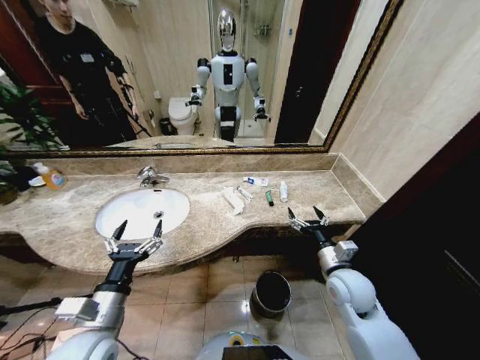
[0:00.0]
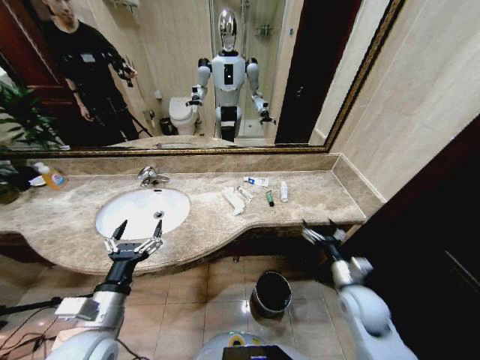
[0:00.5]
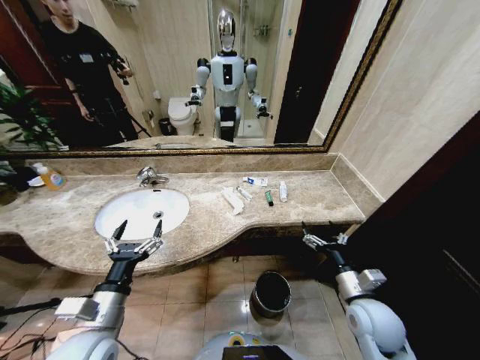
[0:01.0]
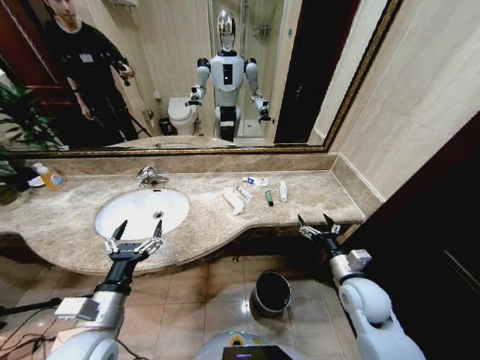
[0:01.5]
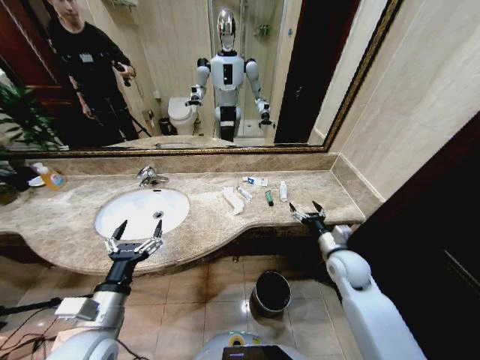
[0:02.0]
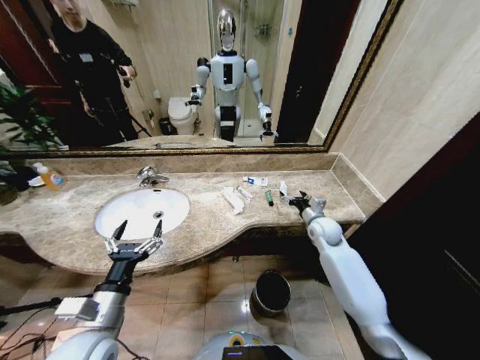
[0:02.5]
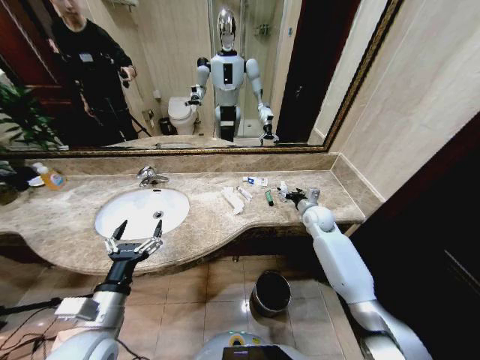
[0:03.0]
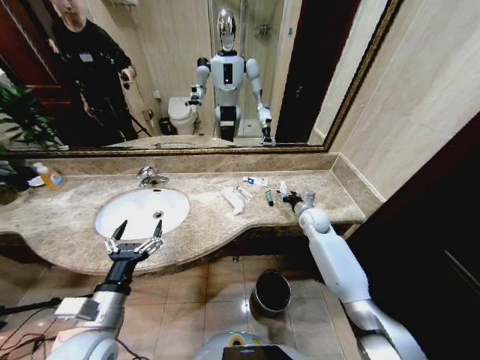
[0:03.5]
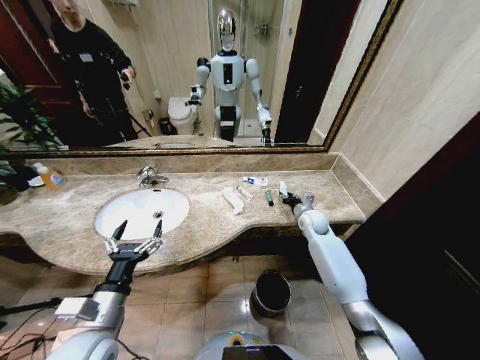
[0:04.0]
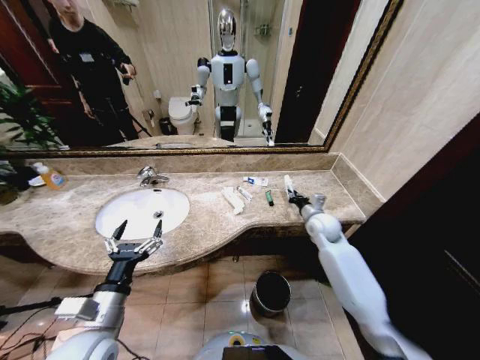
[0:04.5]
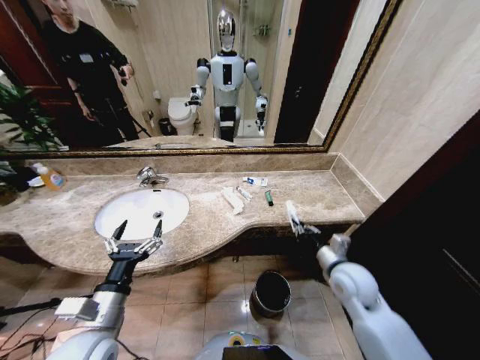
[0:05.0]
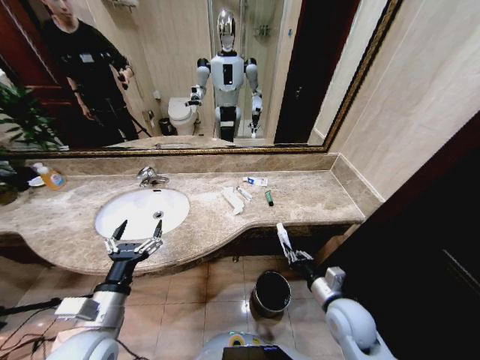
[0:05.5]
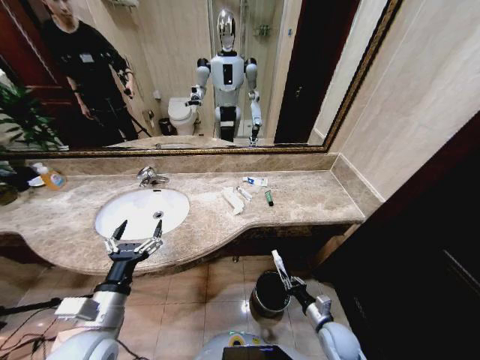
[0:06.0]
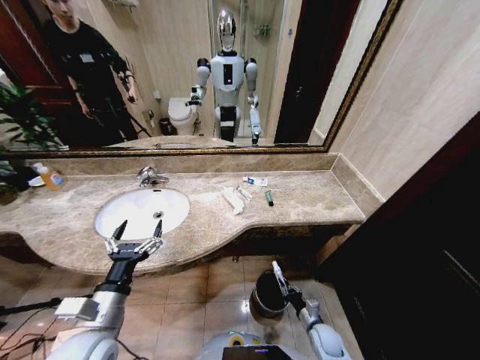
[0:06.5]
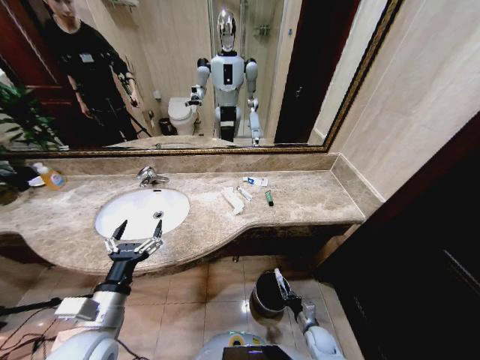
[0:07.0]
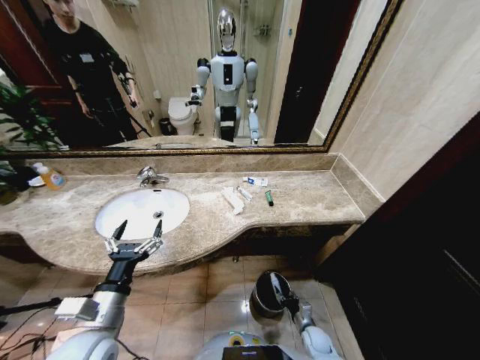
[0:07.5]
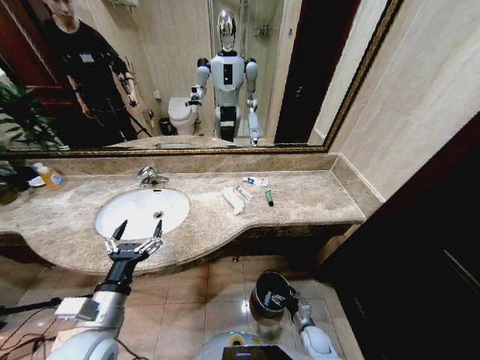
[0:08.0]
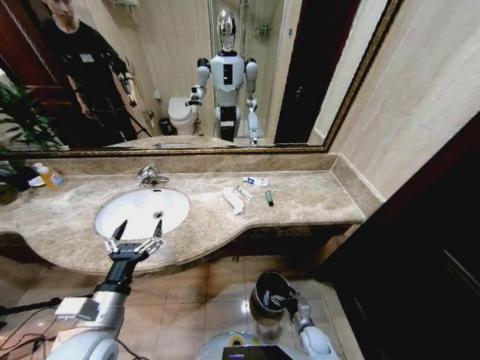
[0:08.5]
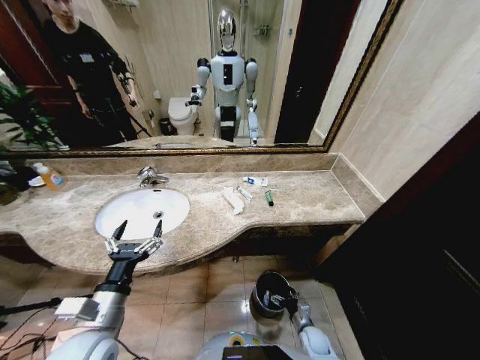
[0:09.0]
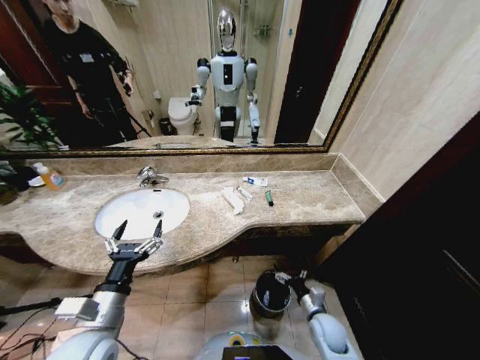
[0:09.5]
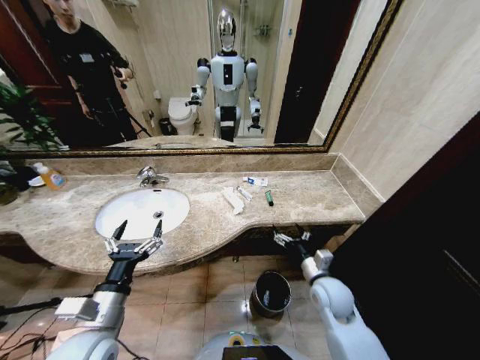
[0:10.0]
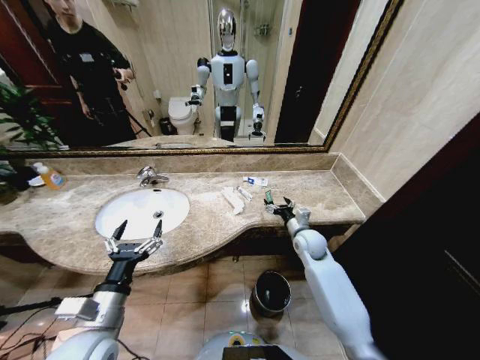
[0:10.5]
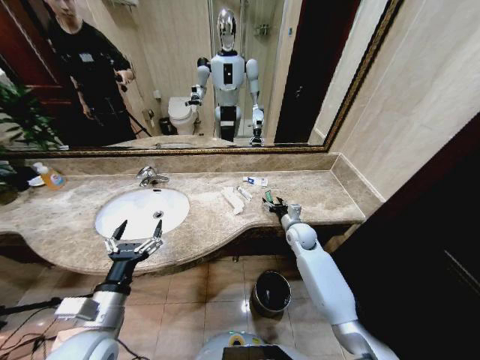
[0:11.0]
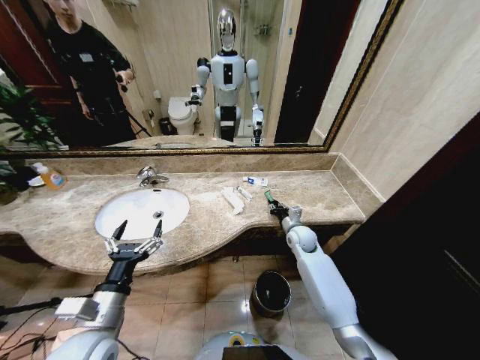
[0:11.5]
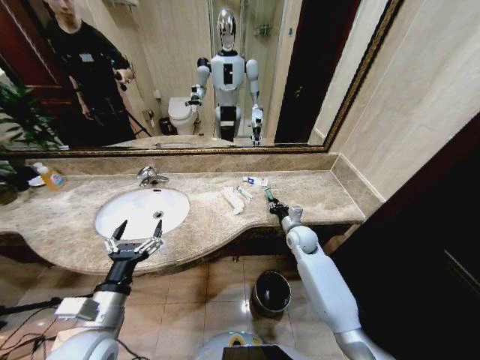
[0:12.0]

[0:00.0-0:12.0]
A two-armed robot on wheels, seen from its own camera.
Task of the whole recording: Pick up the trash from the sink and place it in the trash bin.
0:02.0 to 0:04.0: The right gripper goes some 15 cm forward, and closes up.
0:04.0 to 0:06.0: The right gripper is displaced backward and downward by approximately 35 cm, and closes up.
0:06.0 to 0:08.0: The right gripper is displaced downward by approximately 15 cm, and opens up.
0:08.0 to 0:10.0: The right gripper heads upward, covering some 30 cm.
0:10.0 to 0:12.0: The right gripper moves forward, approximately 15 cm, and closes.

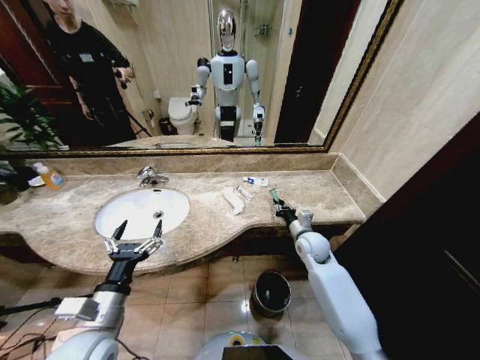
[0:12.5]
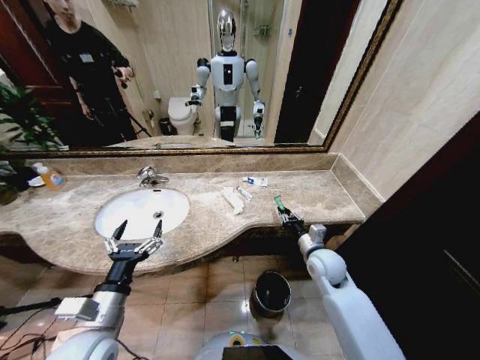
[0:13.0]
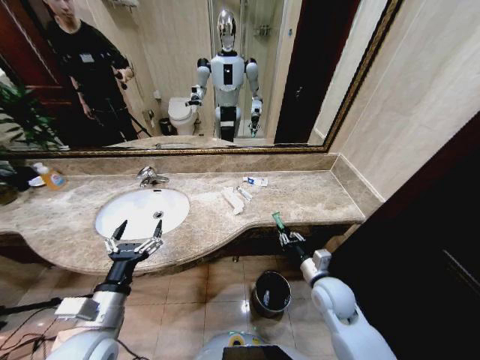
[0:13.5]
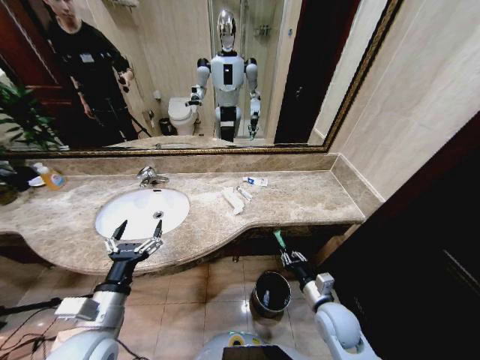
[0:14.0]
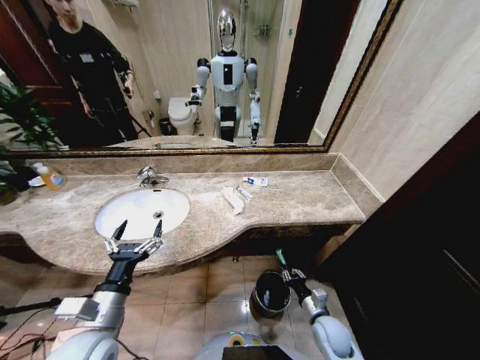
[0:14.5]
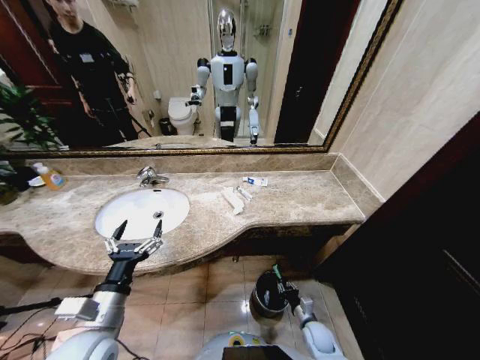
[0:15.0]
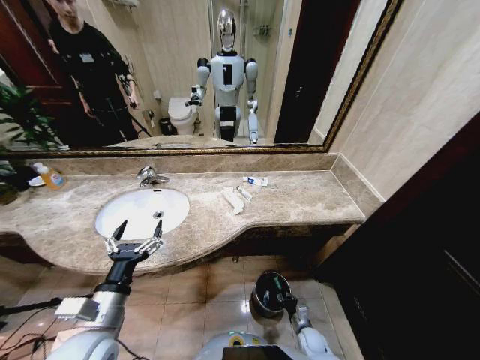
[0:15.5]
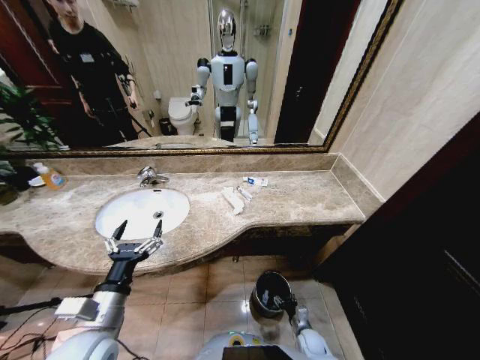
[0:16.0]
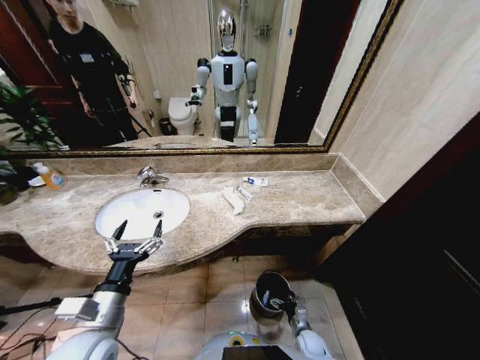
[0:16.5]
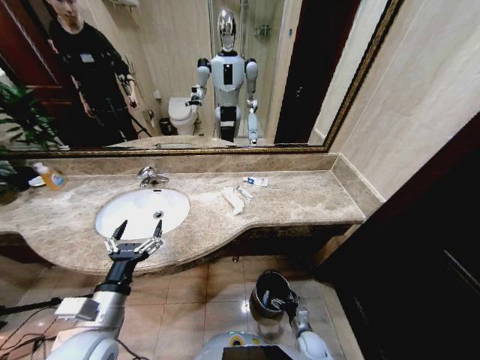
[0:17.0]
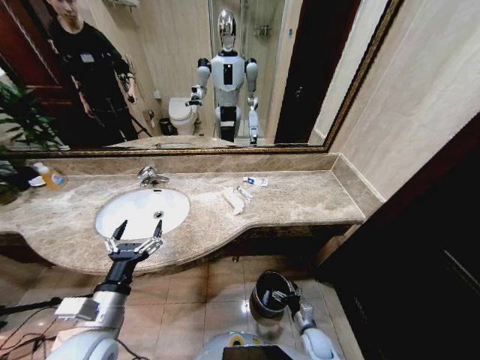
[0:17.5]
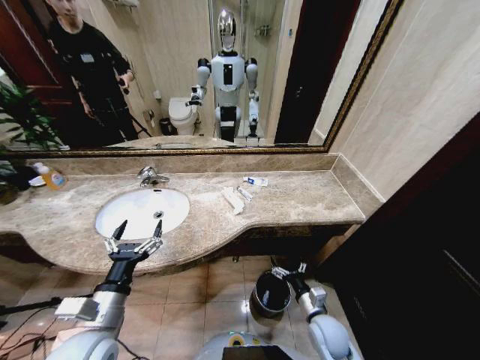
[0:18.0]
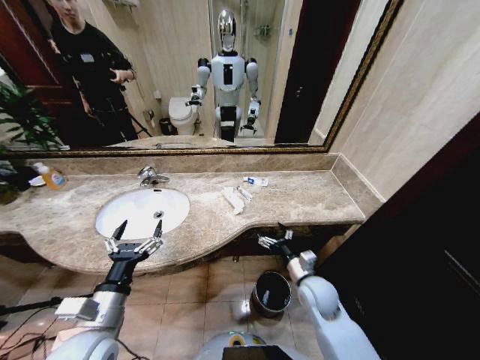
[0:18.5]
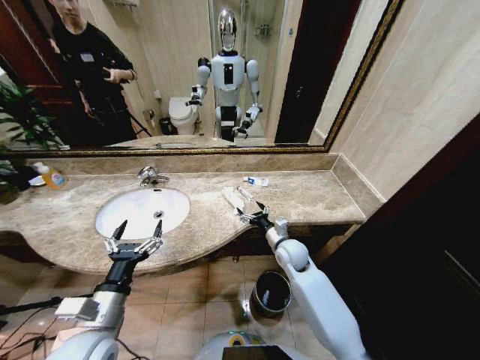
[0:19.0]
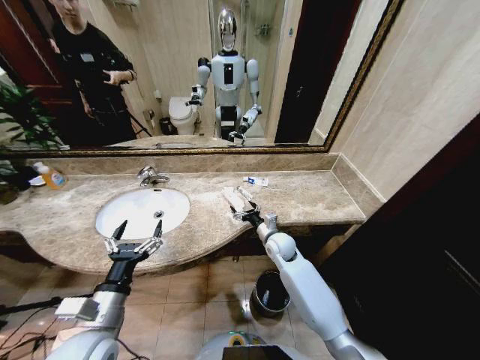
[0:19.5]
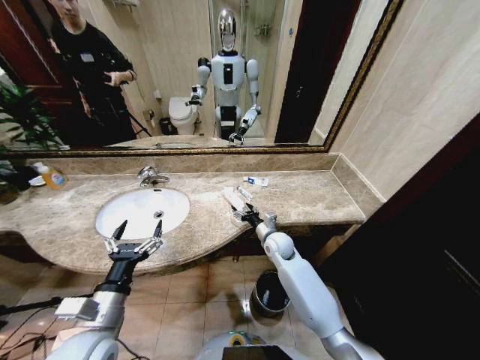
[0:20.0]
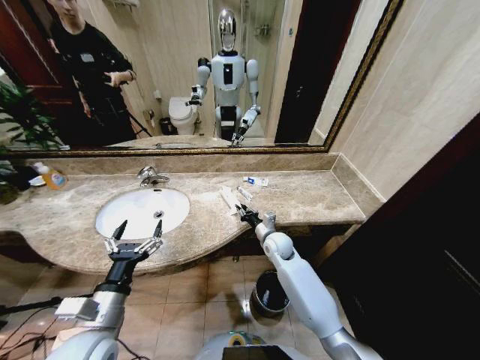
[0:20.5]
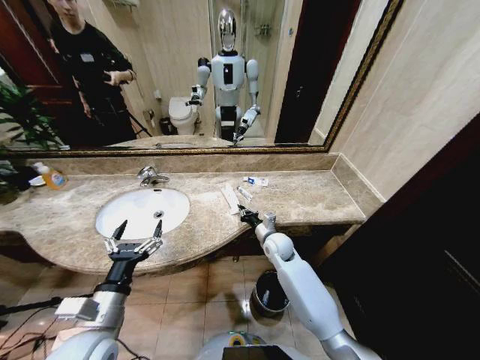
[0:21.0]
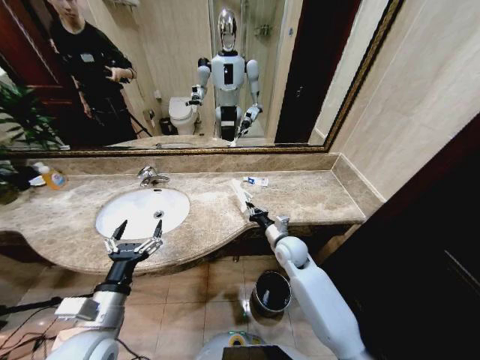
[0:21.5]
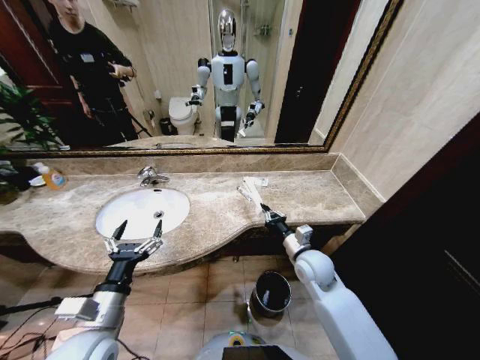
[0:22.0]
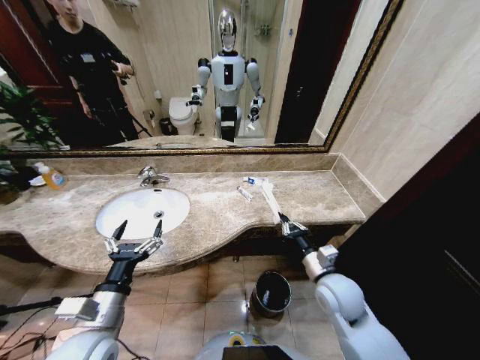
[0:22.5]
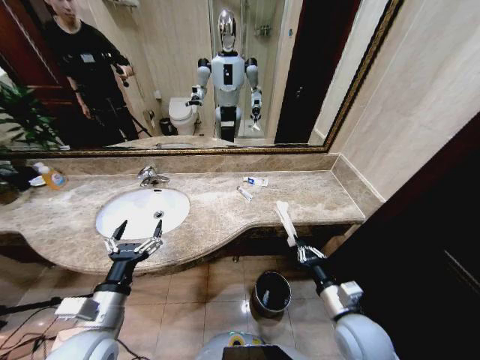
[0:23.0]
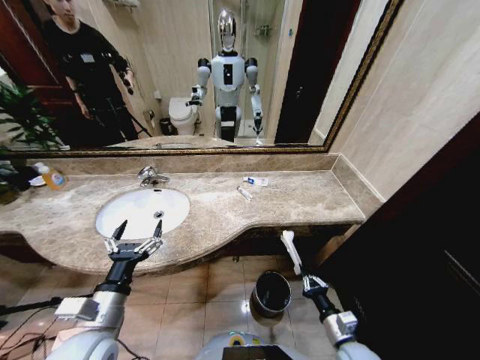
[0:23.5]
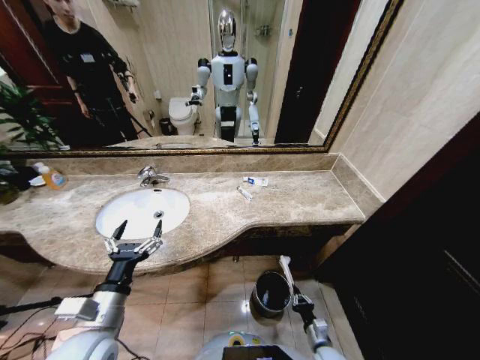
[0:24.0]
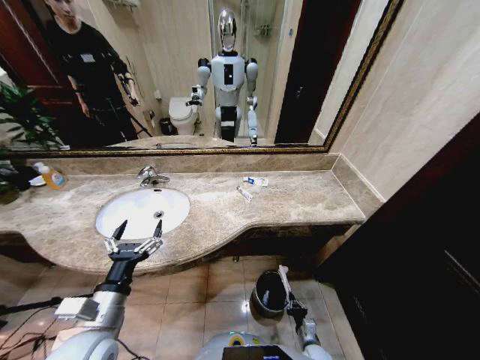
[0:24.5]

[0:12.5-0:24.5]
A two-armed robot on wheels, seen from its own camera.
Task of the whole recording: Pick up the trash from the sink and place it in the trash bin.
0:12.5 to 0:14.5: The right gripper travels backward and downward by some 25 cm.
0:14.5 to 0:16.5: The right gripper goes roughly 15 cm downward, and opens up.
0:16.5 to 0:18.5: The right gripper heads upward, covering about 30 cm.
0:18.5 to 0:20.5: The right gripper moves forward and to the left, about 15 cm, and closes its fingers.
0:20.5 to 0:22.5: The right gripper travels backward and to the right by roughly 20 cm.
0:22.5 to 0:24.5: The right gripper goes approximately 35 cm downward.

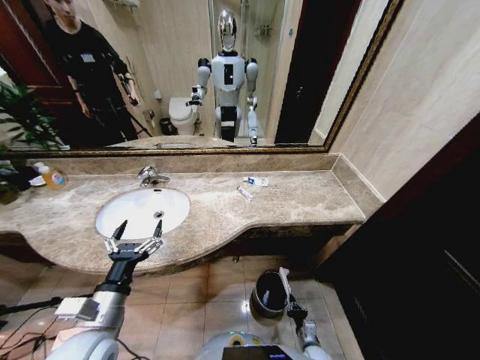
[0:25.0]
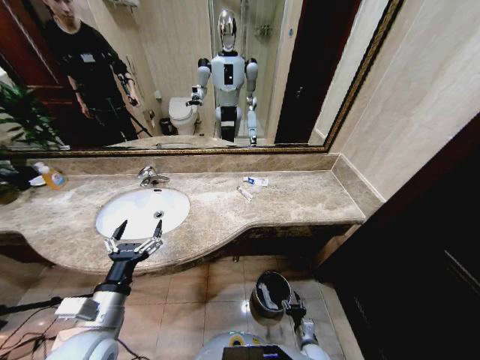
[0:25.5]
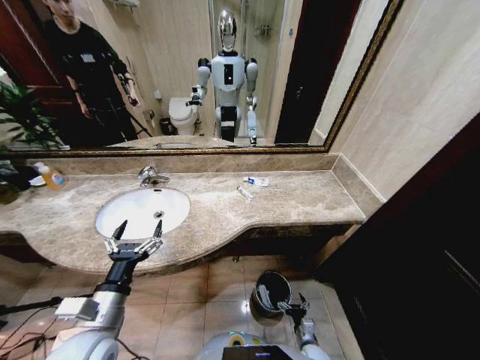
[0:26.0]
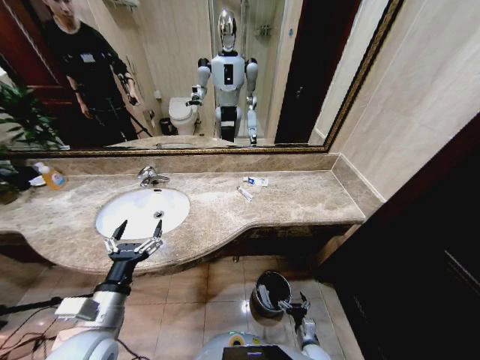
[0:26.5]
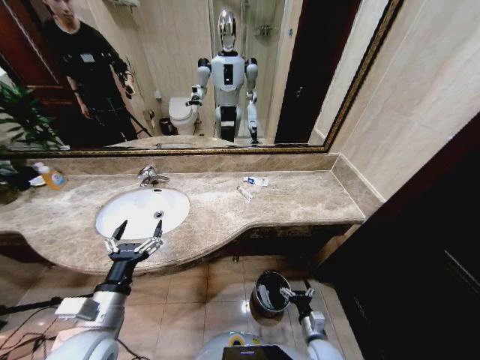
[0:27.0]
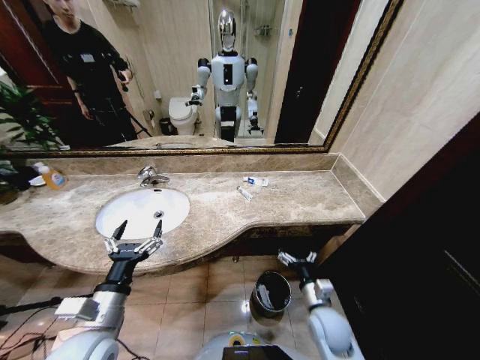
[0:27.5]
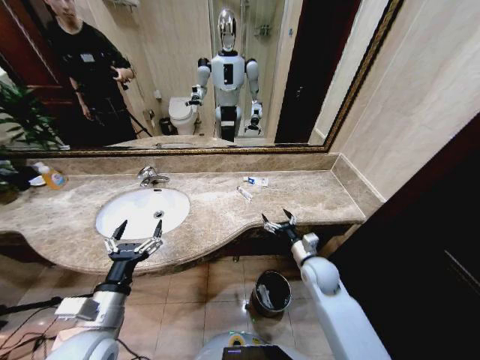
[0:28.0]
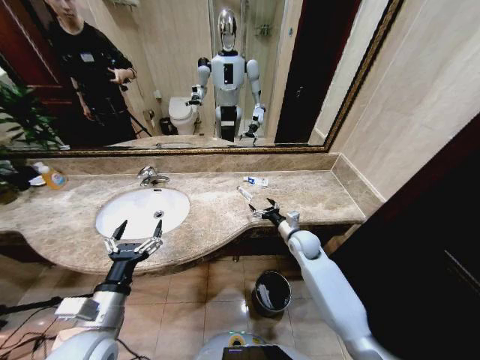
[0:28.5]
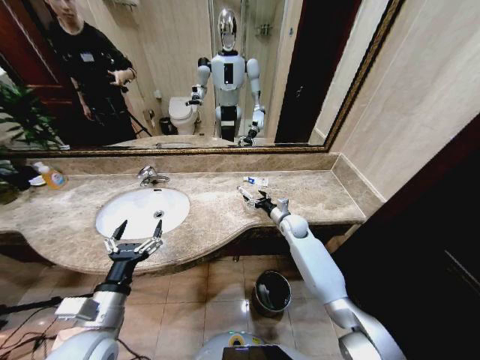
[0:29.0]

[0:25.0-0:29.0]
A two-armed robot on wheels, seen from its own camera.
Task of the whole recording: Pick up the trash from the sink and place it in the trash bin.
0:25.0 to 0:27.0: The right gripper goes some 10 cm upward, and opens.
0:27.0 to 0:29.0: The right gripper heads forward and upward, covering approximately 40 cm.
